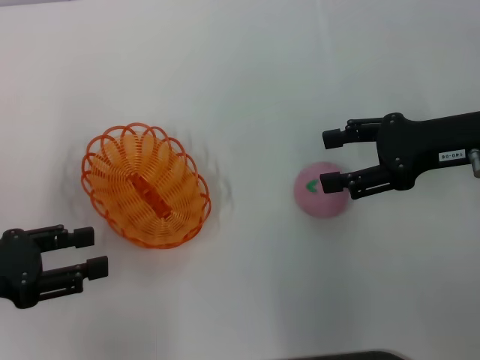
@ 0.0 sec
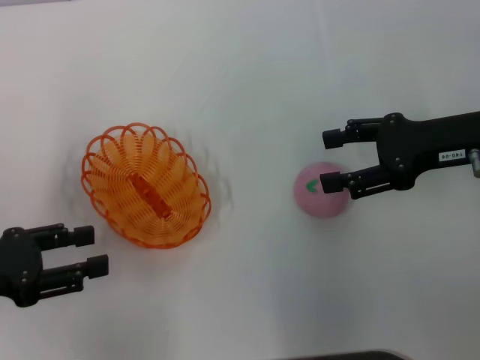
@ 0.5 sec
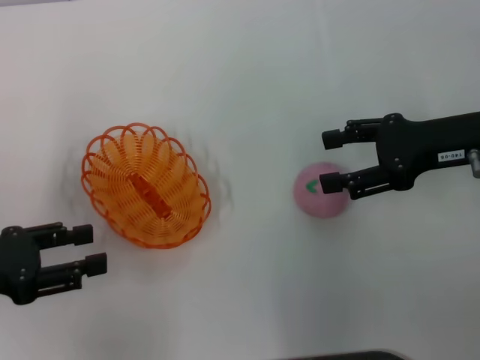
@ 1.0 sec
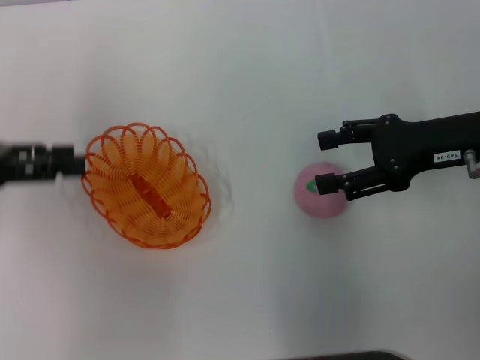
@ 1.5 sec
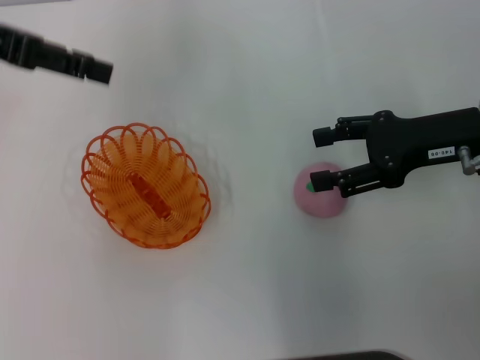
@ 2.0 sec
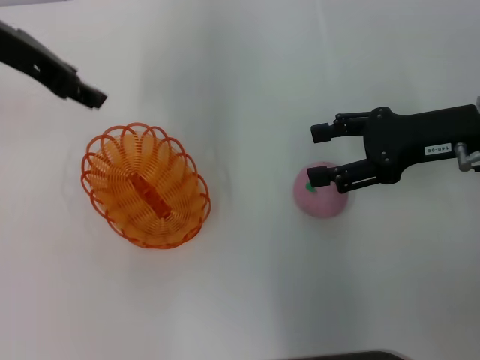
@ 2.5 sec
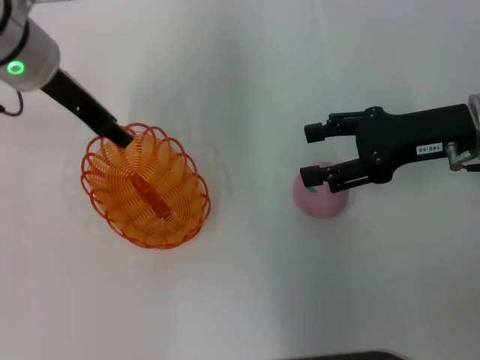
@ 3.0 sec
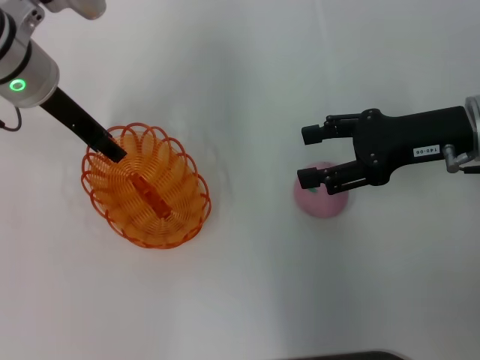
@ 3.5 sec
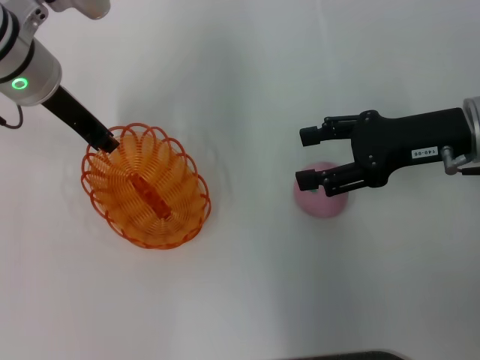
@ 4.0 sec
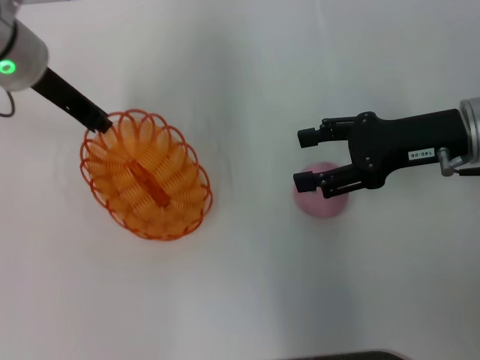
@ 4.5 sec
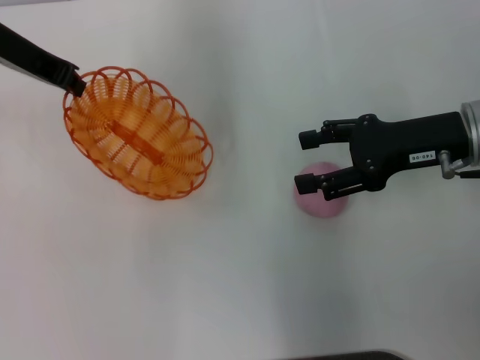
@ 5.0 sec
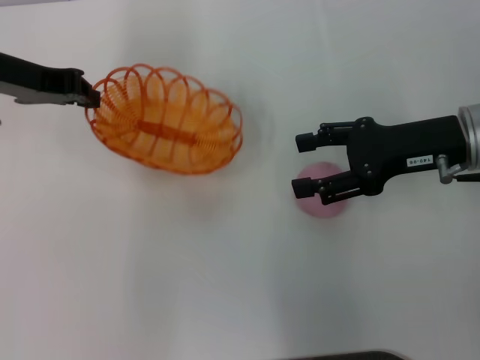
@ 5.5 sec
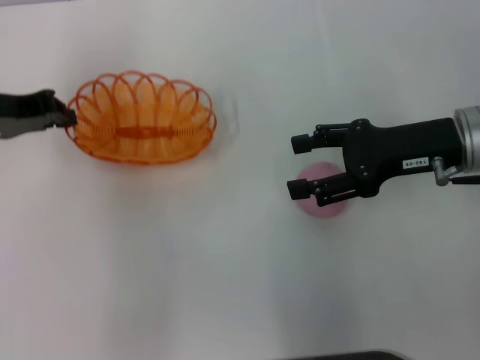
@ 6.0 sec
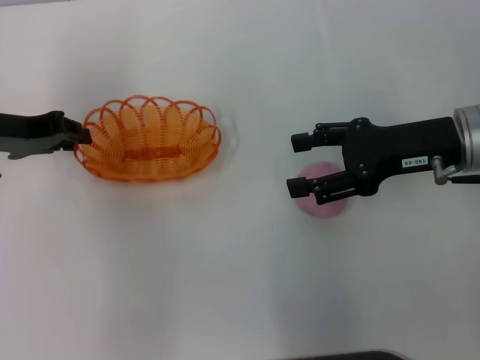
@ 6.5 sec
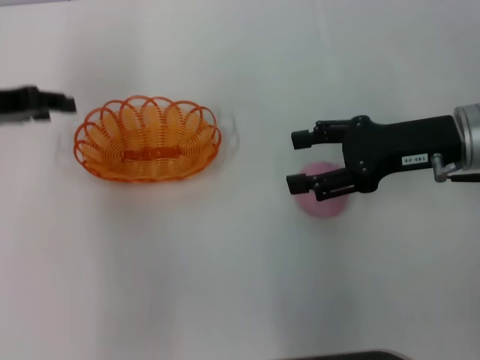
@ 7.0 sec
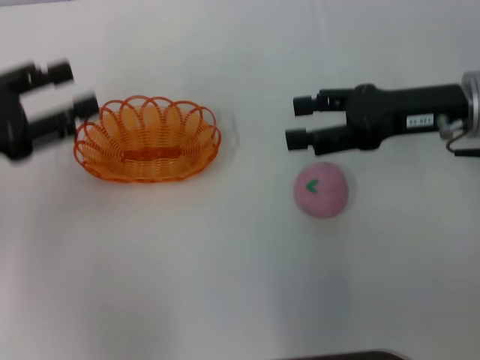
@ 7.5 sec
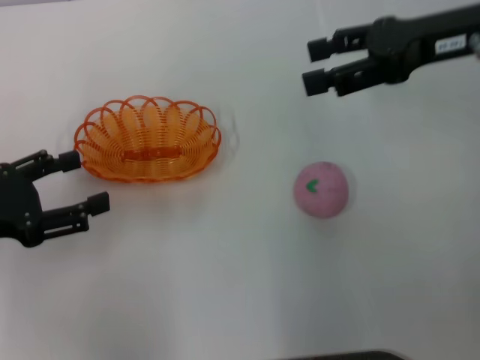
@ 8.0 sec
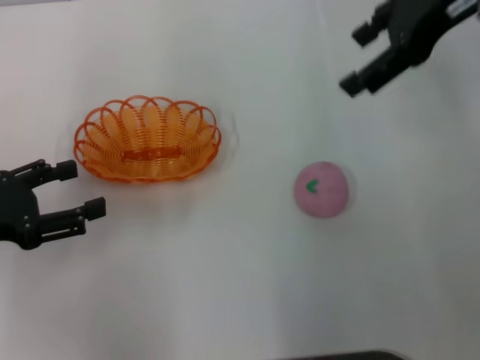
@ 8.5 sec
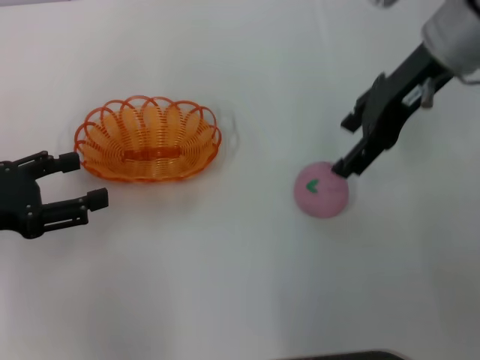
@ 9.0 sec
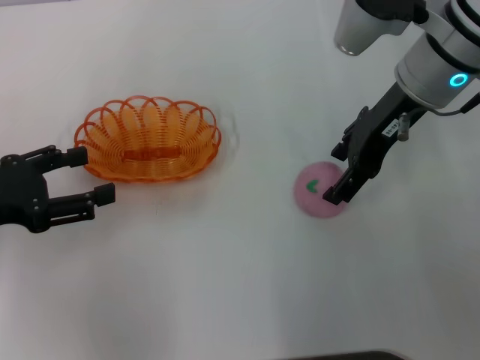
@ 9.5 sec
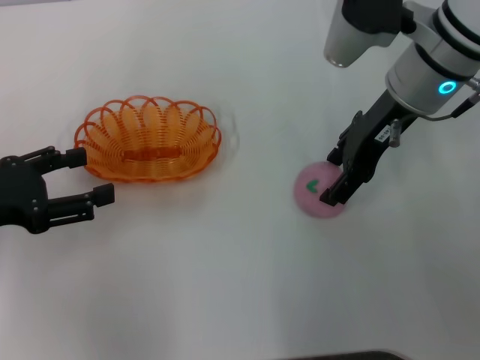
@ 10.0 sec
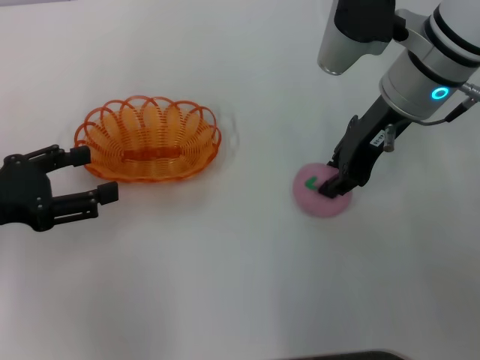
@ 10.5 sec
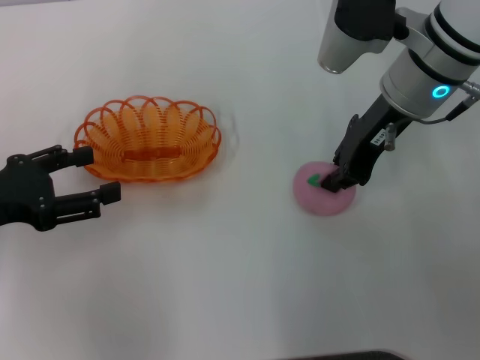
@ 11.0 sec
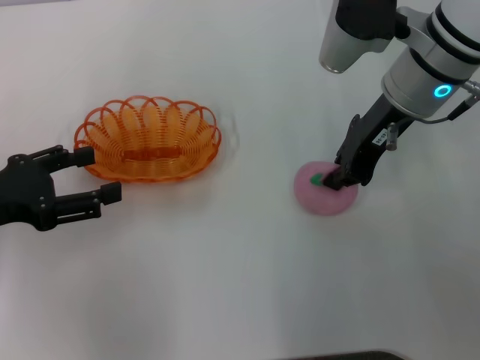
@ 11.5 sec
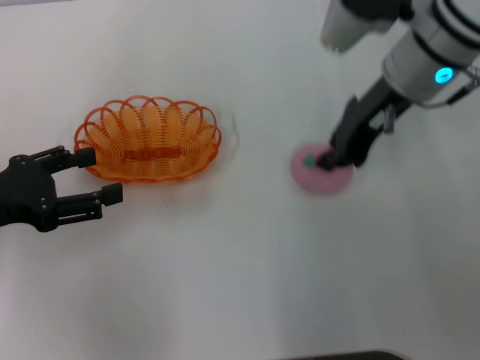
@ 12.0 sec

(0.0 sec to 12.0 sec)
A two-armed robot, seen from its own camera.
Step, 0.0 sec - 4.5 sec: Pick up the basket with the left gripper.
Step, 5.0 sec - 7.5 sec: Place the basket in the center of view with the left gripper.
0.0 sec - 2.0 sec: The left gripper moves upward and forward, about 25 cm.
2.0 sec - 4.0 sec: The left gripper moves downward and to the right, approximately 15 cm, and closes.
4.0 sec - 6.0 sec: The left gripper is displaced to the left by approximately 10 cm.
6.0 sec - 8.0 sec: The right gripper goes about 10 cm upward and forward. The left gripper goes some 15 cm backward, and opens up.
8.0 sec - 10.0 sec: The right gripper goes some 10 cm to the left.
10.0 sec - 12.0 sec: The right gripper closes up.

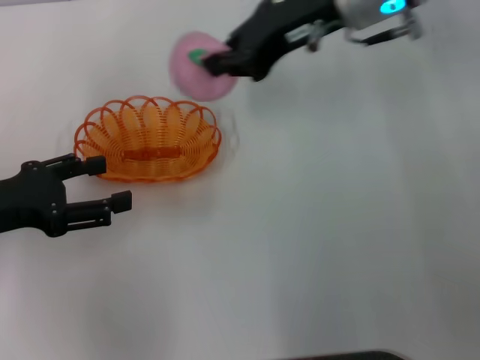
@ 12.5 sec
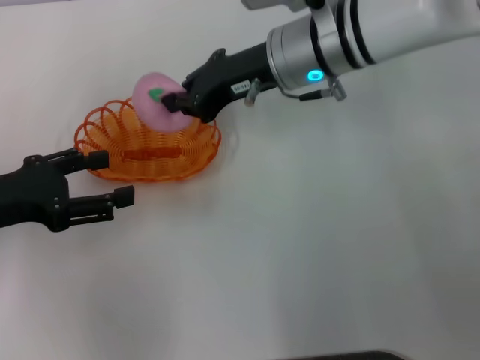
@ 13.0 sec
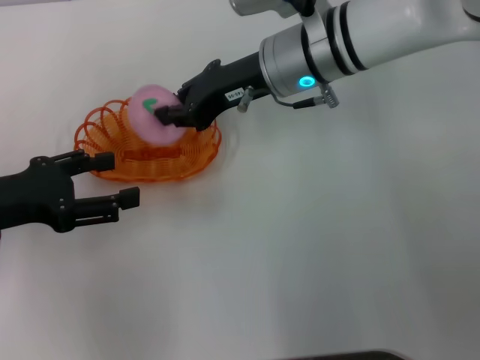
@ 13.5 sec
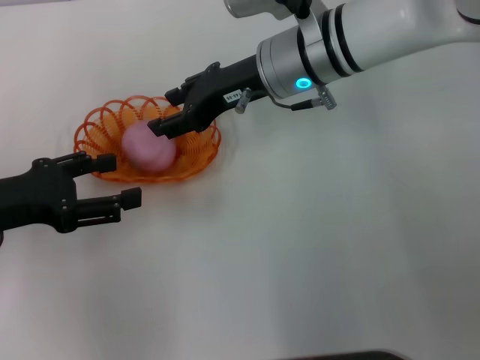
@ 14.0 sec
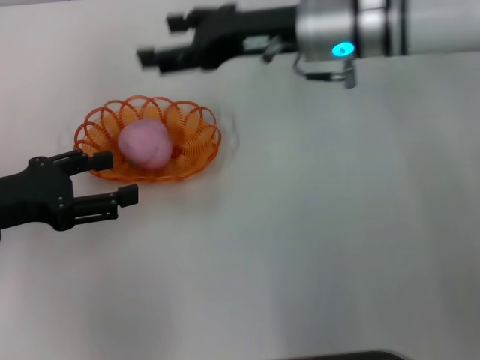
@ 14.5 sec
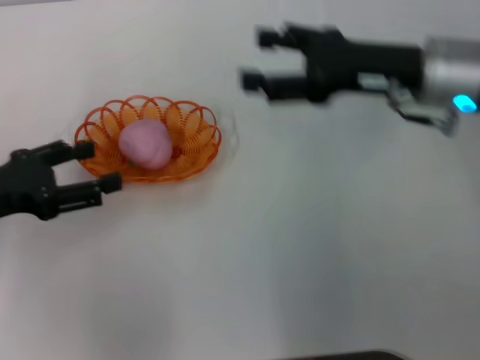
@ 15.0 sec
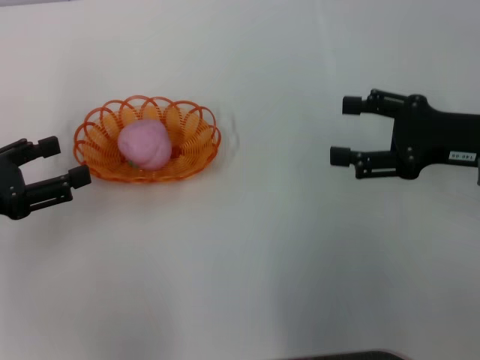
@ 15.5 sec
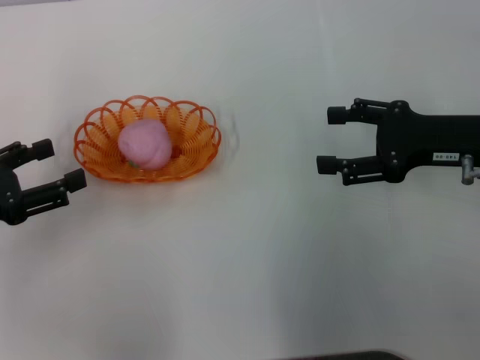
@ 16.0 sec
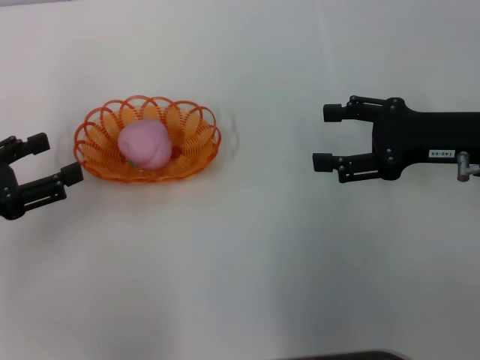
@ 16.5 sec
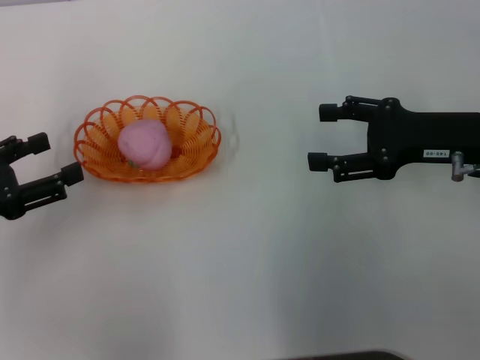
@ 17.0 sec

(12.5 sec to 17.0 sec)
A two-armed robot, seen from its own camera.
Step, 12.5 sec - 14.5 sec: Place the peach into the basket with the right gripper.
12.5 sec - 14.5 sec: The right gripper shifts about 5 cm downward, and opens.
14.5 sec - 17.0 sec: The right gripper is displaced to the right and backward by roughly 20 cm.

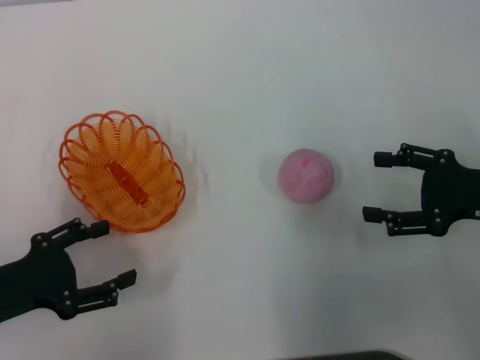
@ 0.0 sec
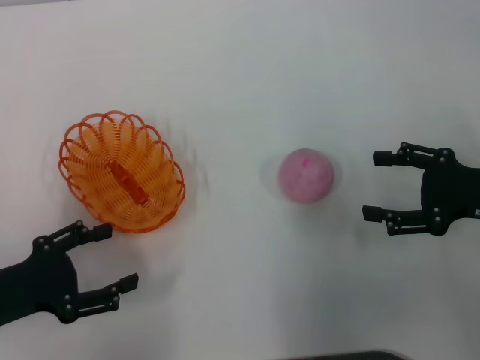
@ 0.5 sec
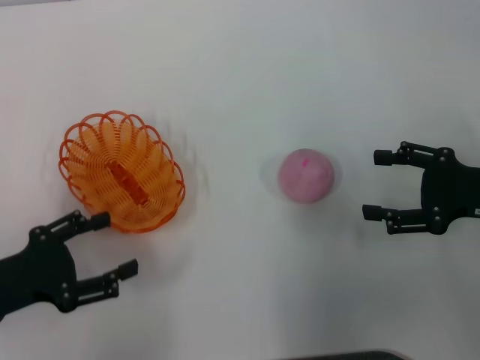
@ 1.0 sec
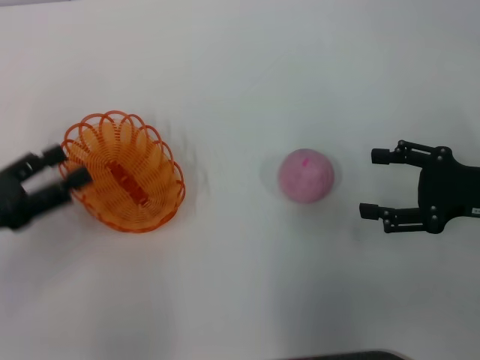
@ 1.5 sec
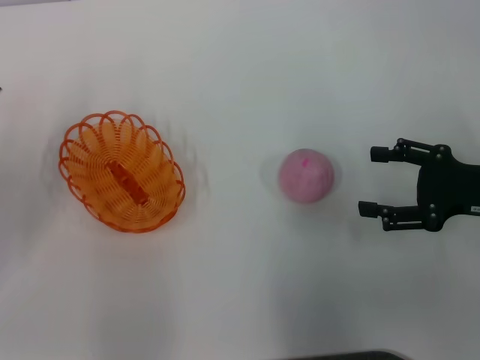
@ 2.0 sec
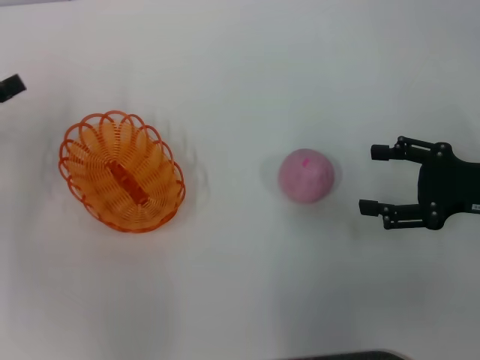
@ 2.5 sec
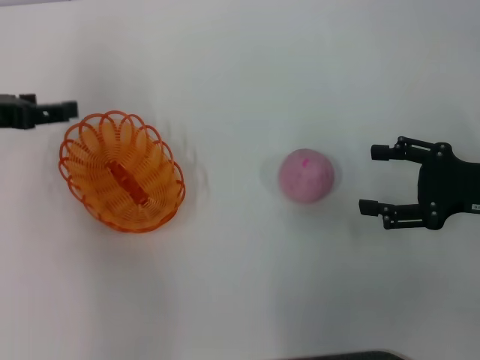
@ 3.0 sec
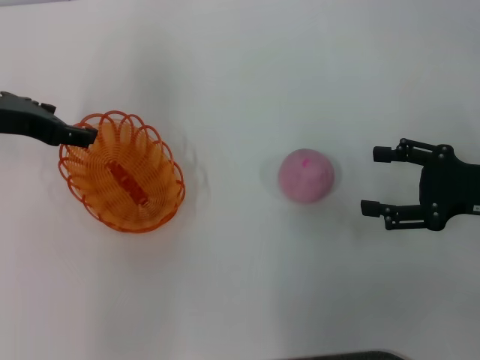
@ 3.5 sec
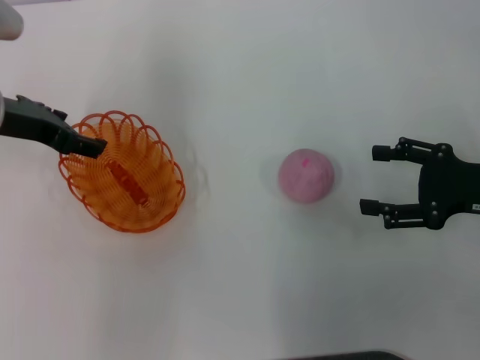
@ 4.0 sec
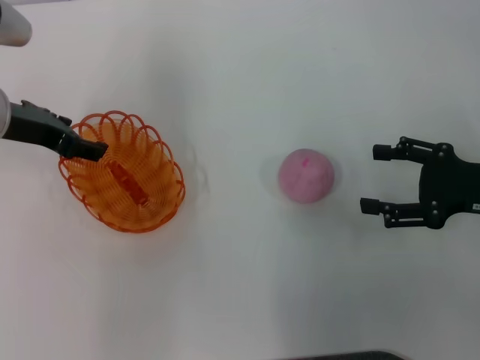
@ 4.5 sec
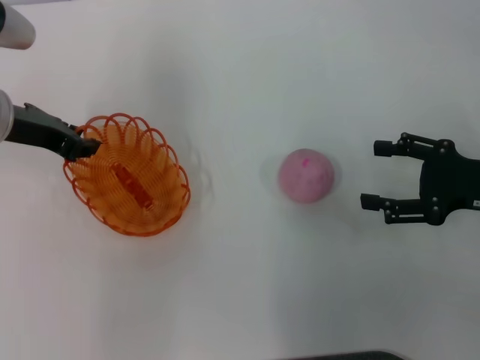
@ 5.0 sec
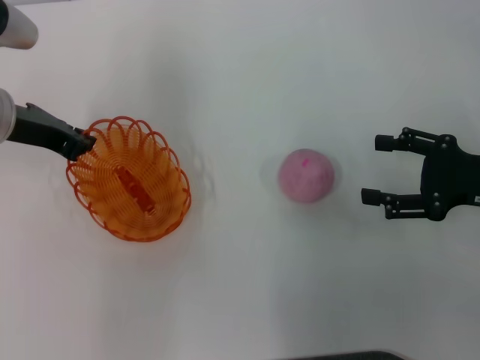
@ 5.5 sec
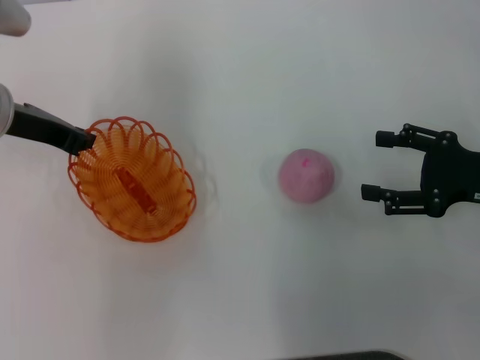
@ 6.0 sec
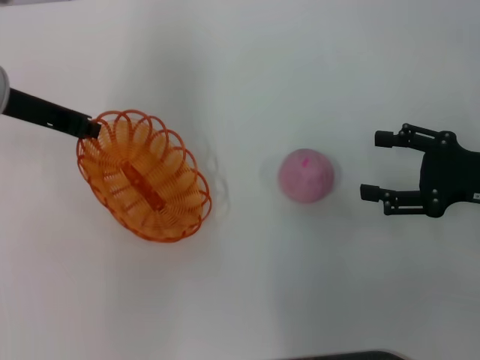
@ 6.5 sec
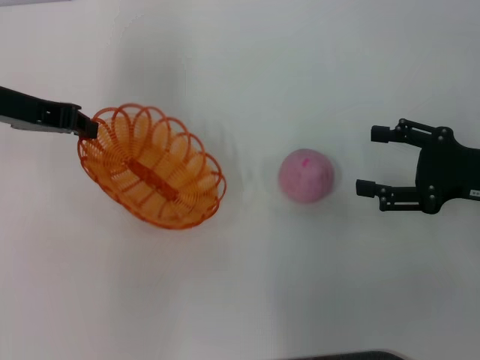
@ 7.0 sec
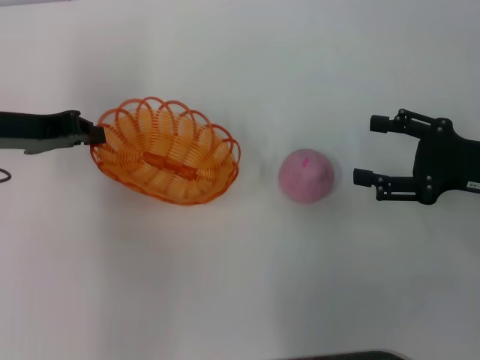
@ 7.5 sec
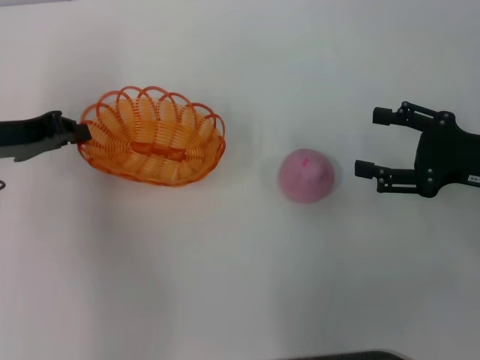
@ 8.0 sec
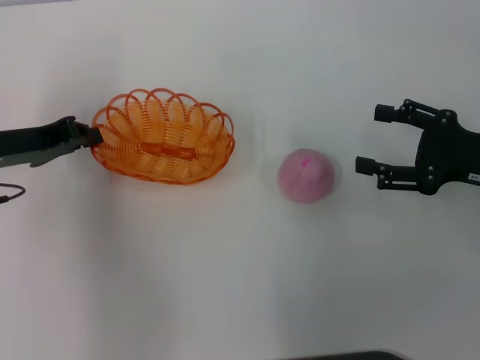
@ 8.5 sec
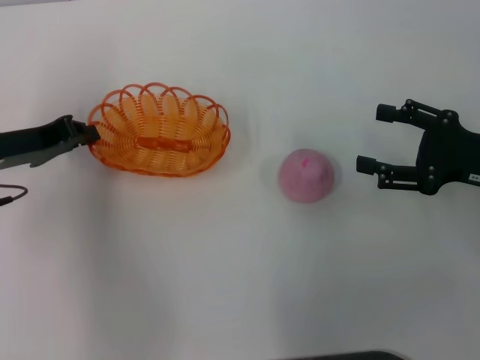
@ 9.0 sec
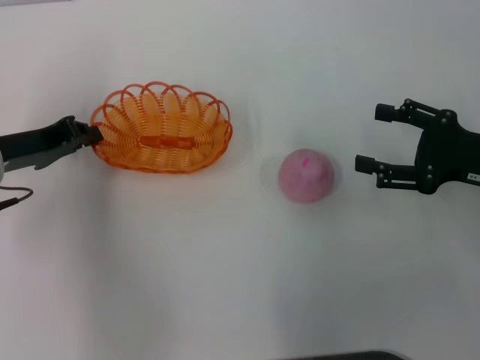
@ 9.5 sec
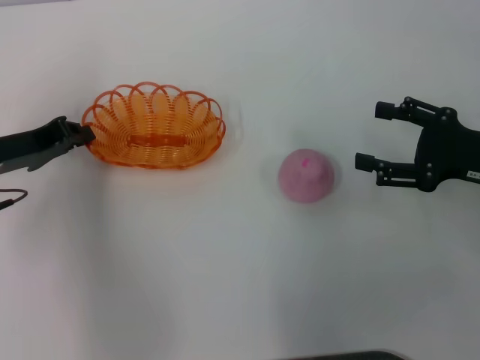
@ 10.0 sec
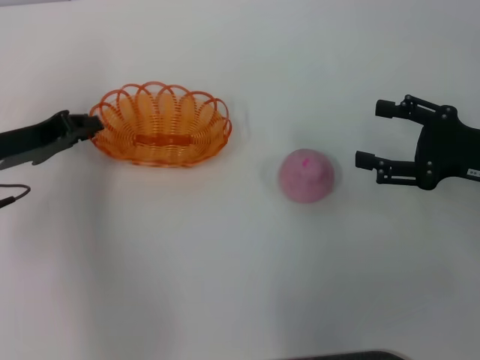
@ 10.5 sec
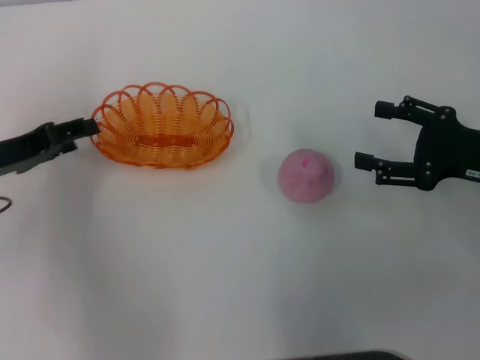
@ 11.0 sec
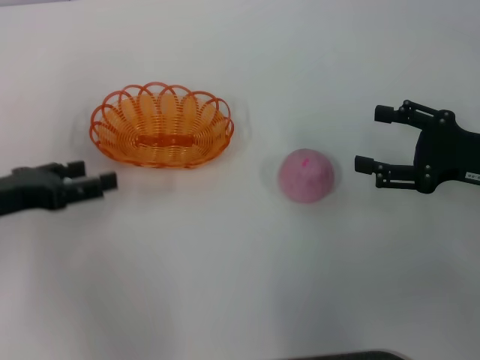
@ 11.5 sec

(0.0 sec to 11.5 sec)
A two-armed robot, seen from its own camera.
Step, 0.0 sec - 7.0 sec: Pick up the basket with the left gripper.
0.0 sec - 2.0 sec: The left gripper travels to the left and forward by approximately 10 cm.
2.0 sec - 4.0 sec: The left gripper shifts about 15 cm to the right, forward and upward.
4.0 sec - 6.0 sec: The left gripper closes.
7.5 sec - 9.5 sec: The left gripper changes place by some 5 cm.
9.5 sec - 11.5 sec: The left gripper goes about 5 cm backward, and opens up.
